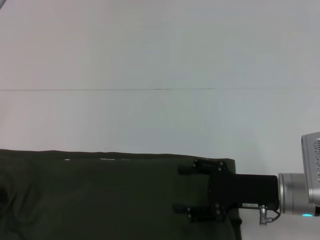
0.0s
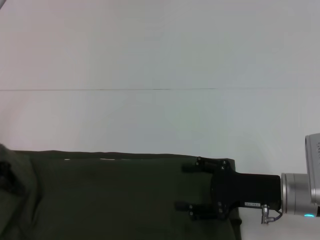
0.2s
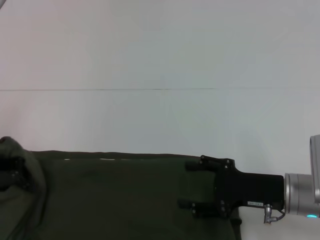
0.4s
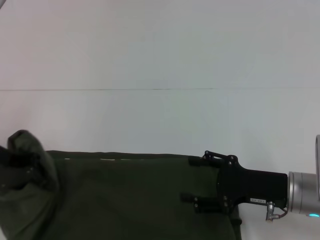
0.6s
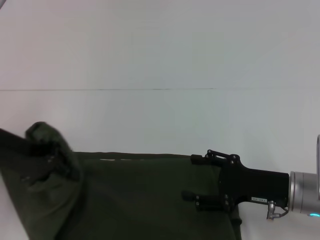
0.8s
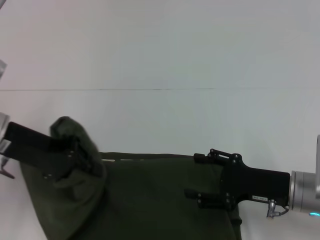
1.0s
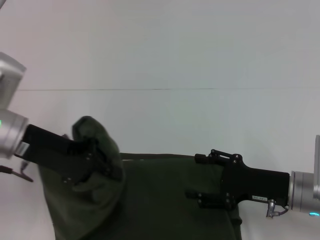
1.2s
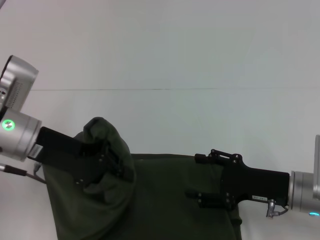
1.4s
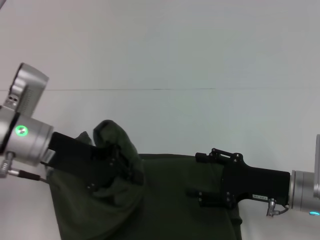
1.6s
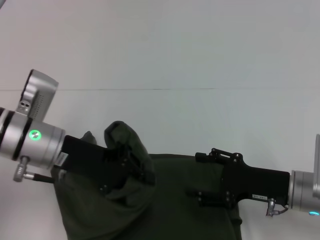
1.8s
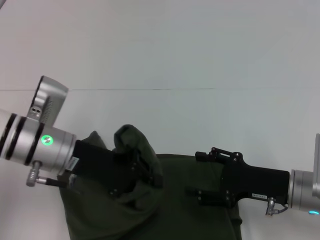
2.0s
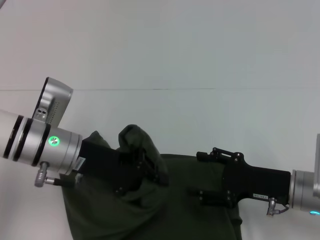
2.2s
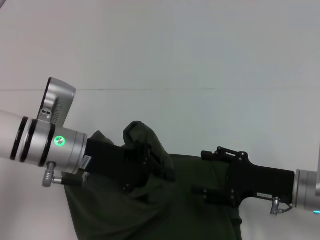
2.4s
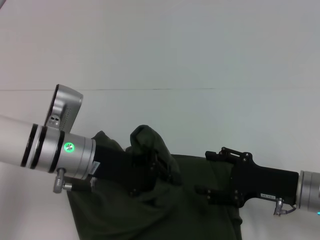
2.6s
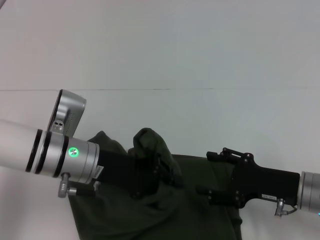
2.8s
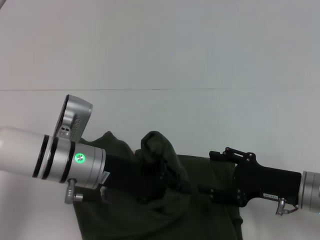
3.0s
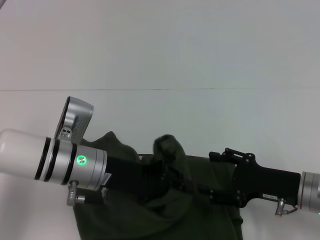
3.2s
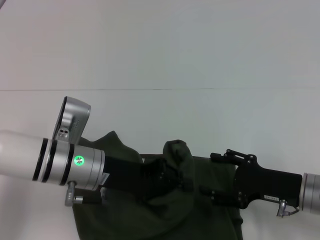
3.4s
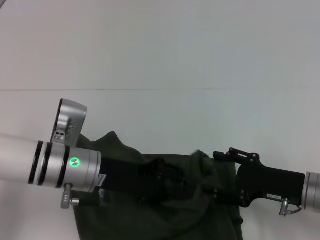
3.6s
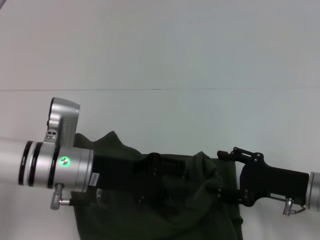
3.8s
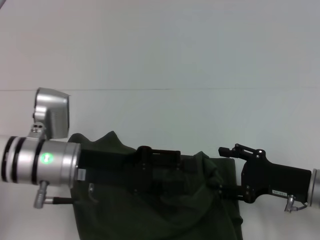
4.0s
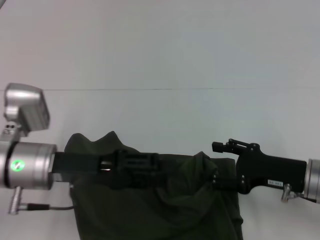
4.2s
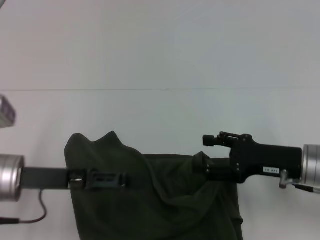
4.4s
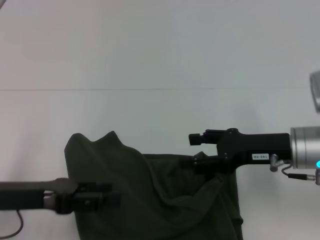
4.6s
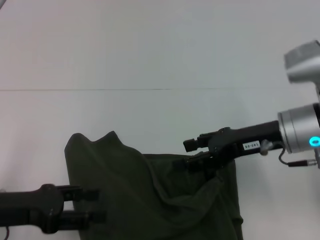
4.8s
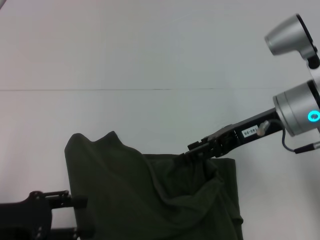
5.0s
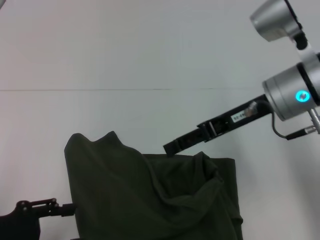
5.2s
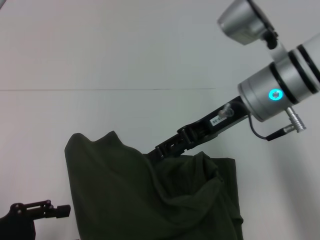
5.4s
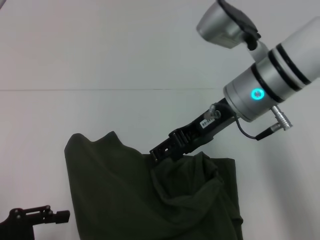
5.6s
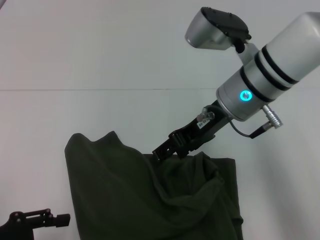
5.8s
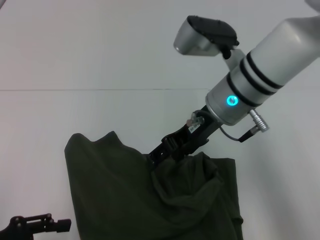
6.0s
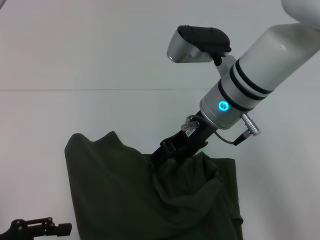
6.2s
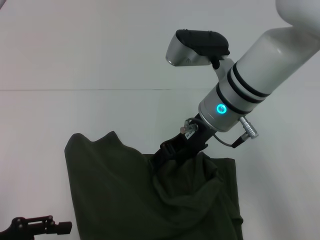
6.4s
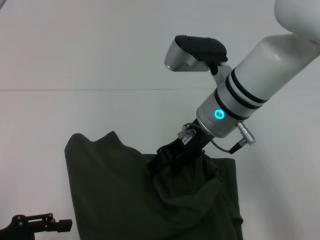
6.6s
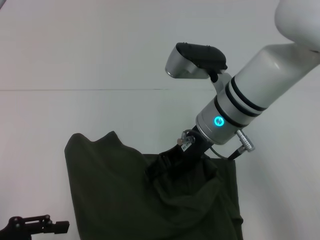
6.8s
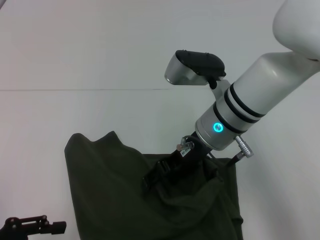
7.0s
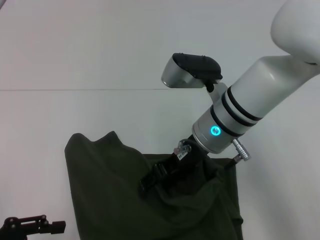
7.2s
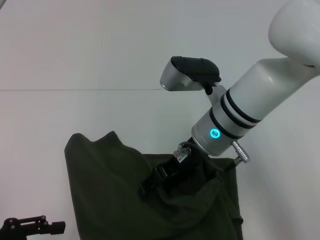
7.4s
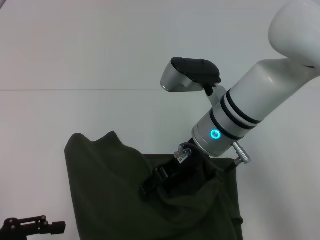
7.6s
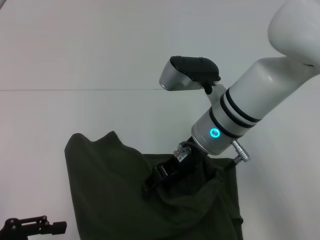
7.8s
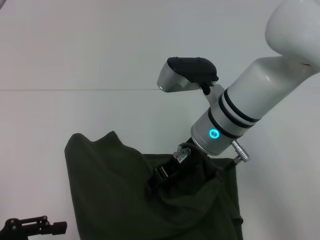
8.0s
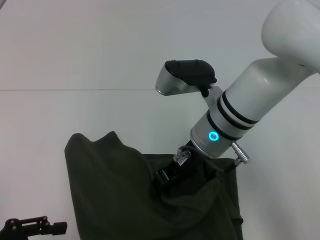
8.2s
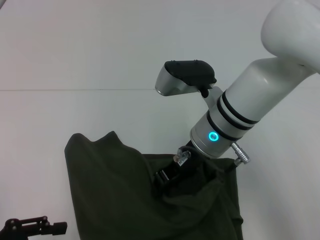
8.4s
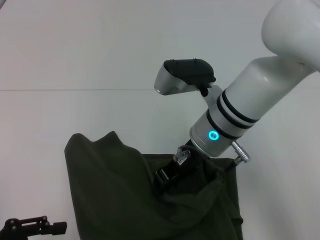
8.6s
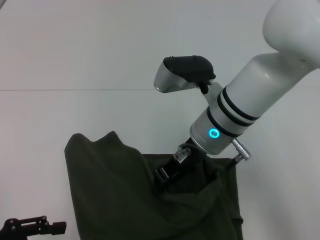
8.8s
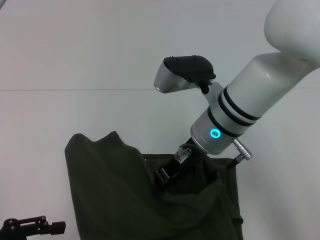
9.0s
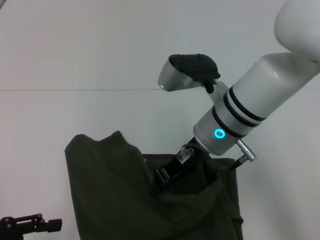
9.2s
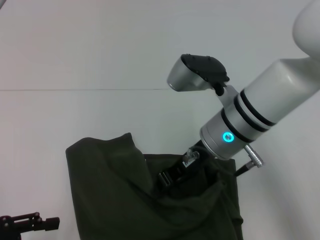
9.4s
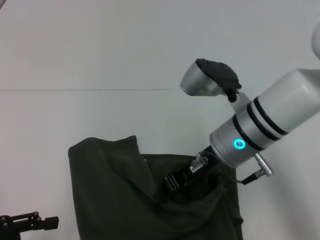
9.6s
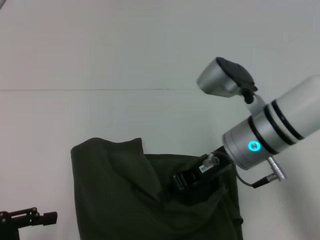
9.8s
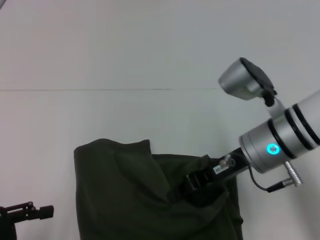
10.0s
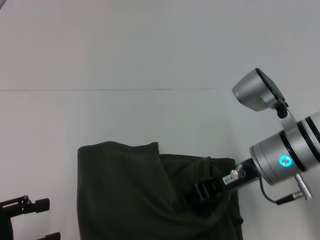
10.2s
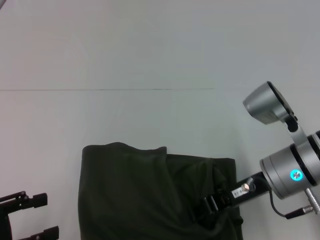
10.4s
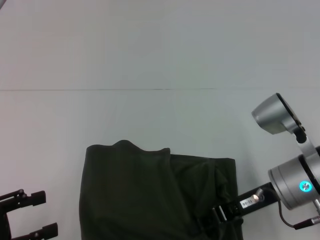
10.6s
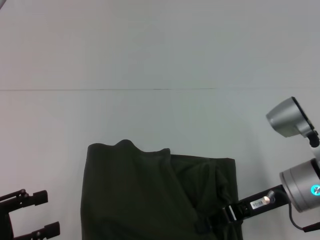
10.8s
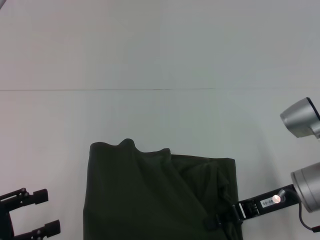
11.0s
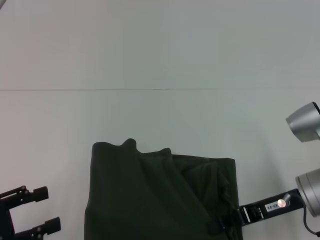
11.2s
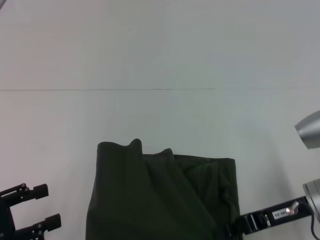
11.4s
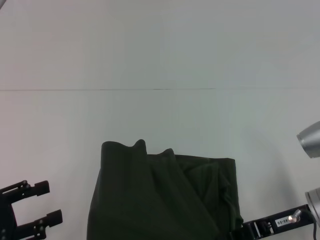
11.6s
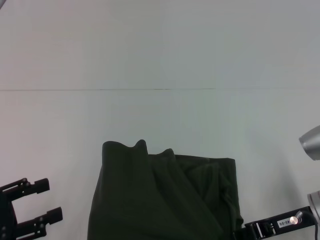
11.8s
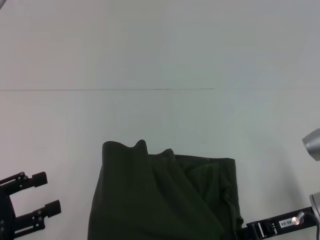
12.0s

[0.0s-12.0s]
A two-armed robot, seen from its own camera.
Step, 0.0s to 4.4s: Fold the clothes with your left hand.
0.0s to 1.6s: The left gripper heads to the right, covering approximately 15 cm.
1.6s to 3.0s: The left gripper is displaced to the right and downward by roughly 10 cm.
3.0s to 4.4s: The left gripper is displaced to the left by about 10 cm, and opens its fingers.
4.4s to 6.0s: The right gripper travels to the left, upward and forward by some 20 cm. The left gripper travels backward and to the left by about 10 cm.
6.0s to 7.6s: The right gripper changes place by about 5 cm.
7.6s to 9.0s: The right gripper closes up.
9.0s to 10.4s: The right gripper travels to the right and backward by about 10 cm.
10.4s to 12.0s: The right gripper heads to the right and downward, covering some 10 cm.

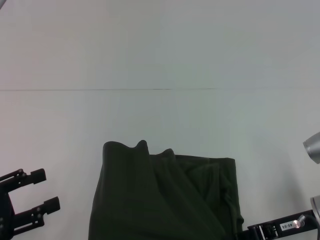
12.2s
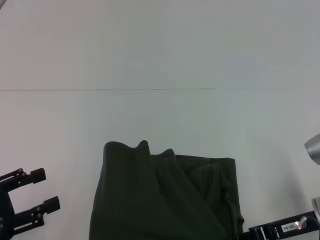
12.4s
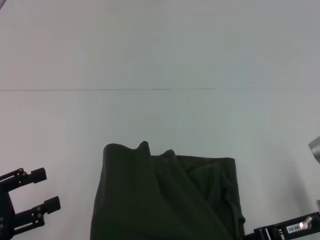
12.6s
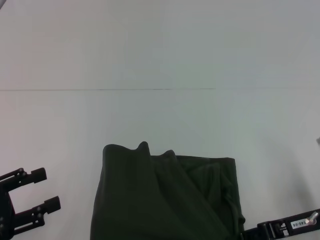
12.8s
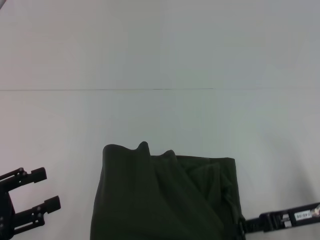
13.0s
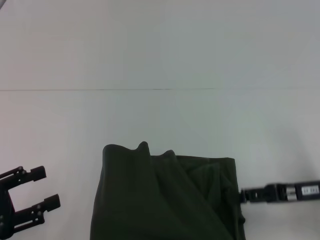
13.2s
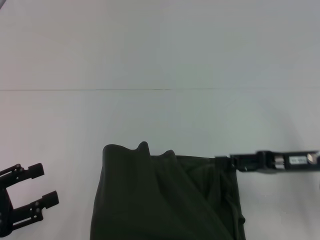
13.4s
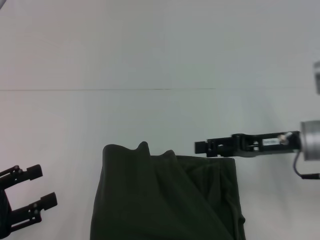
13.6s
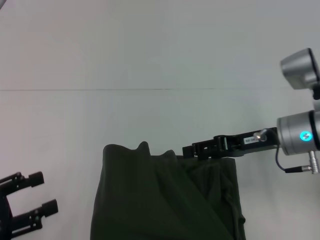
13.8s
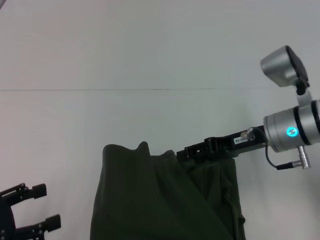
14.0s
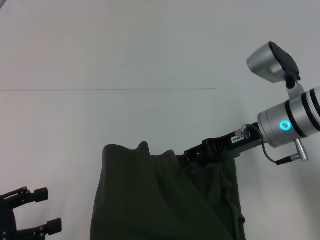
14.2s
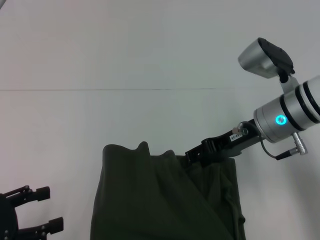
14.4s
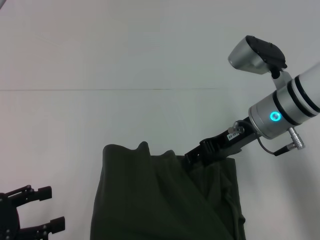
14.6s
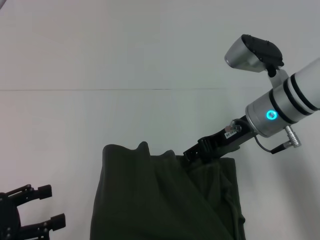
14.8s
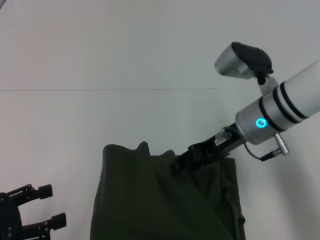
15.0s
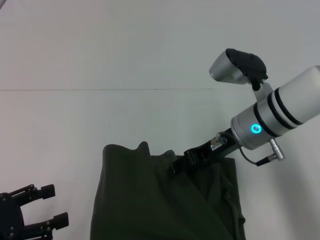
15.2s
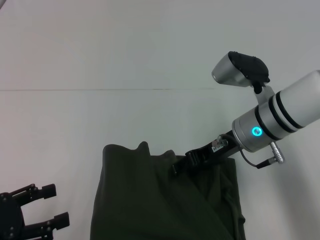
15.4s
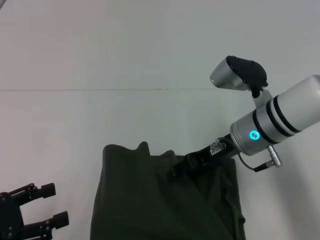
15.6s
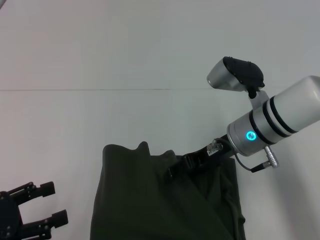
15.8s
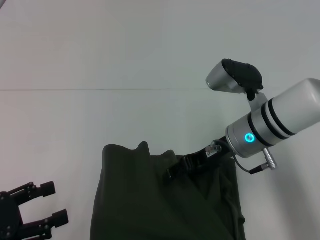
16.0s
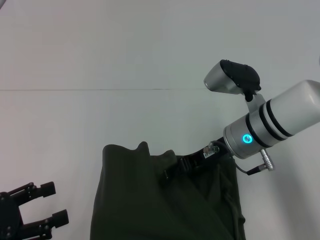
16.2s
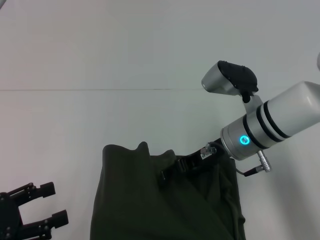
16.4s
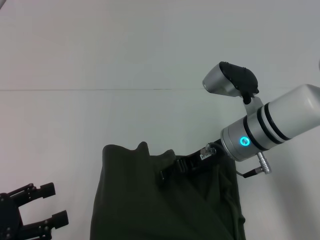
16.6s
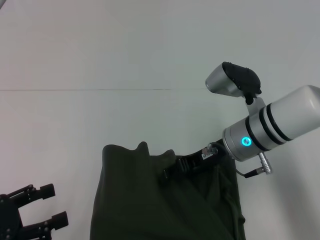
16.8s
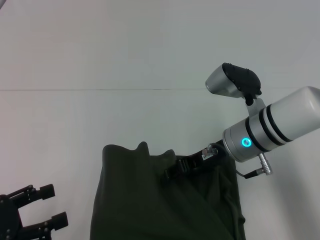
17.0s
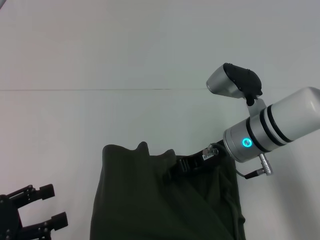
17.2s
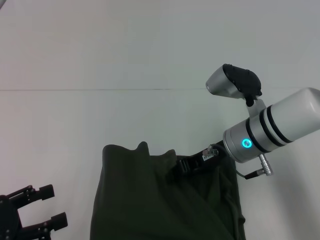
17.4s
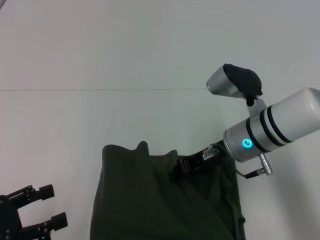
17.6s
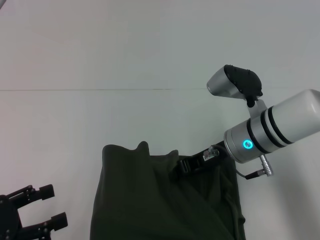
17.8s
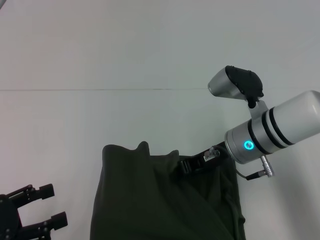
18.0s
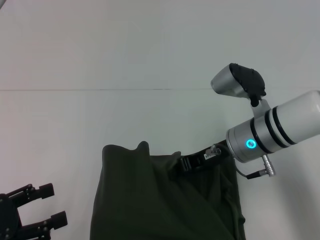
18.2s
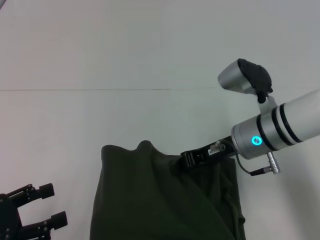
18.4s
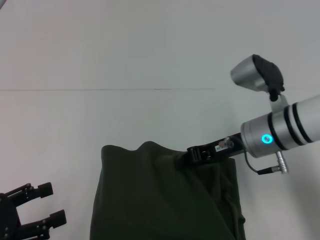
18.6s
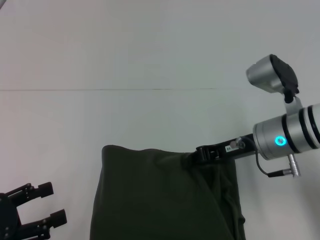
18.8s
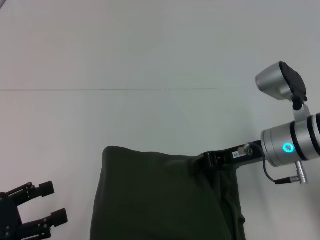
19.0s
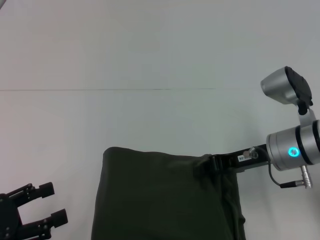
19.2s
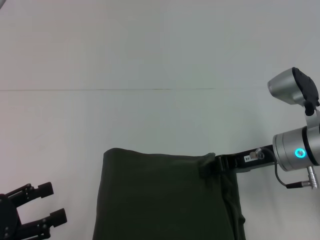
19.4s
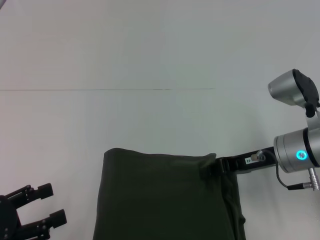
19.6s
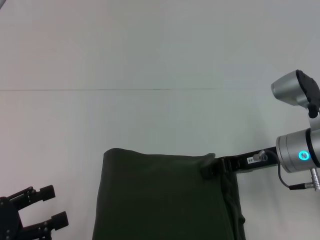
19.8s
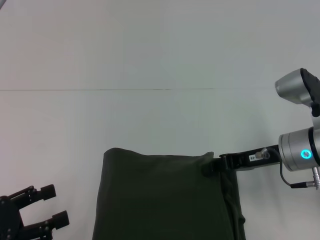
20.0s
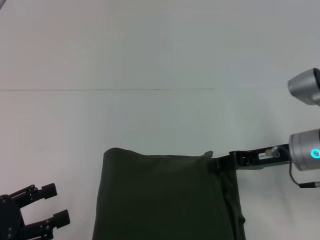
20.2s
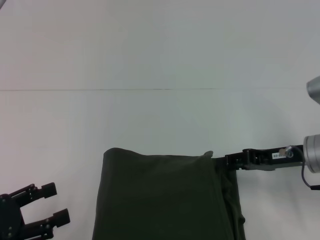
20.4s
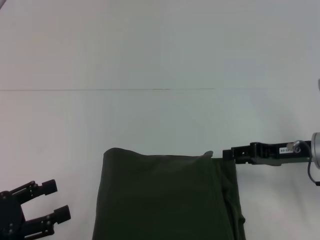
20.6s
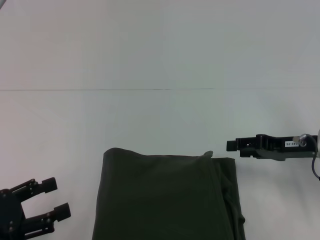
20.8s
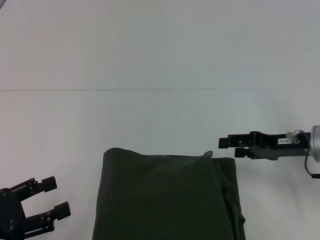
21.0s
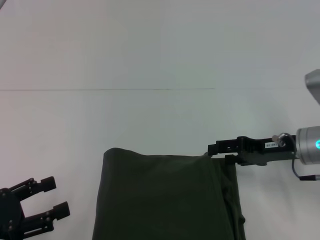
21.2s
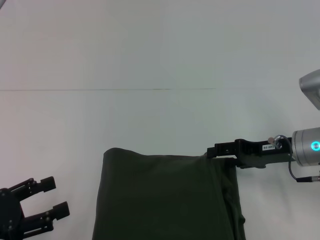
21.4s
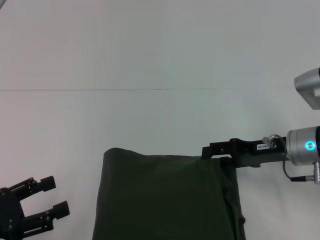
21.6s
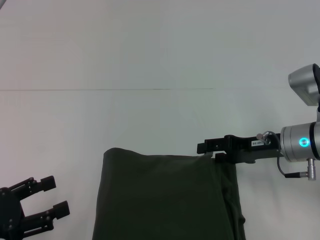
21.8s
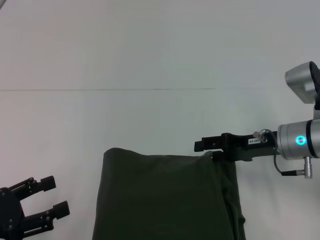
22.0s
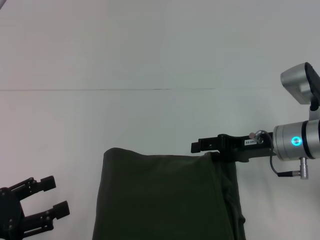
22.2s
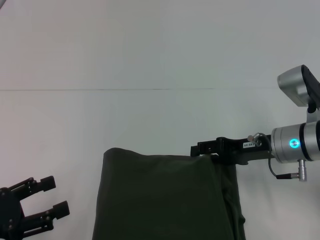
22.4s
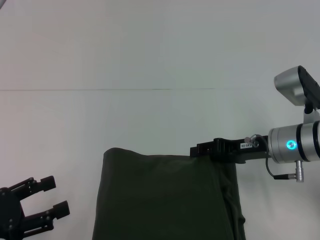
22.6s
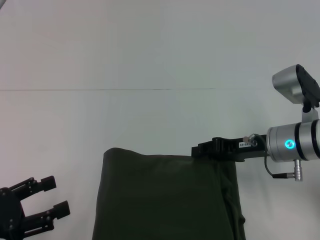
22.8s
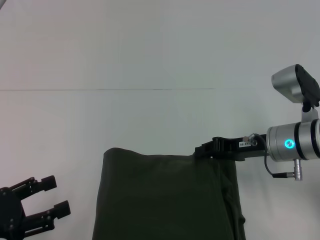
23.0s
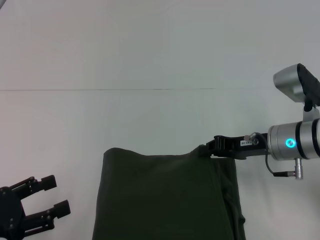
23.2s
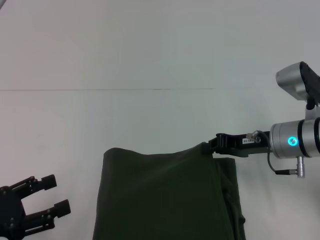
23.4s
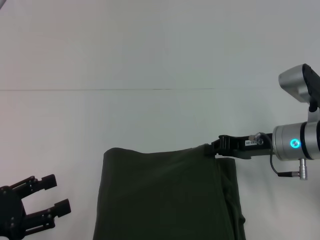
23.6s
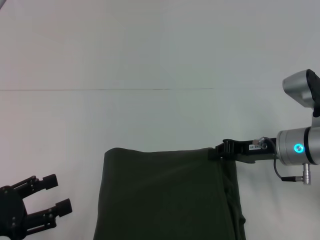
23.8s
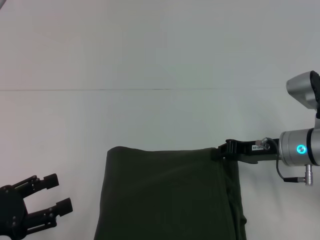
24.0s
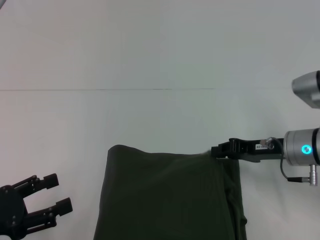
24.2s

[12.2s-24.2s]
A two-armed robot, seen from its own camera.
12.2s to 13.8s: The right gripper shifts about 10 cm forward and upward, and opens its fingers.
13.8s to 15.2s: The right gripper moves to the left, roughly 5 cm.
15.2s to 16.6s: There are only small adjustments of the grippers.
16.6s to 18.2s: The right gripper closes its fingers.
18.2s to 19.8s: The right gripper heads to the right, covering roughly 5 cm.
19.8s to 21.2s: The right gripper opens its fingers.
21.2s to 22.6s: The grippers move only a little.
22.6s to 24.2s: The right gripper closes its fingers.
